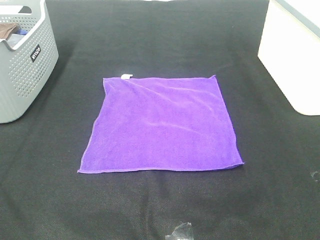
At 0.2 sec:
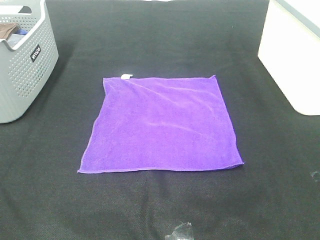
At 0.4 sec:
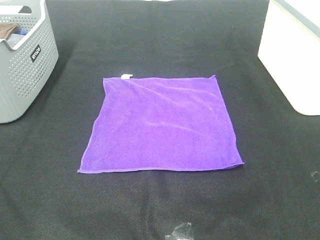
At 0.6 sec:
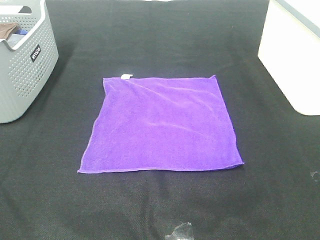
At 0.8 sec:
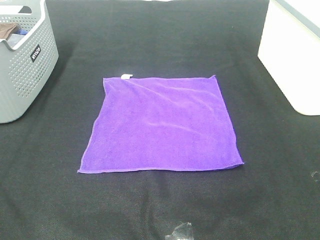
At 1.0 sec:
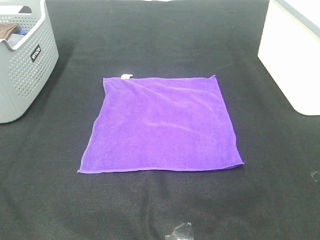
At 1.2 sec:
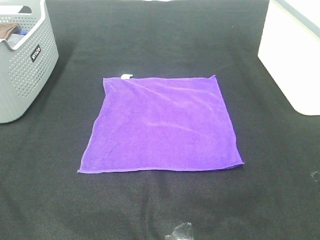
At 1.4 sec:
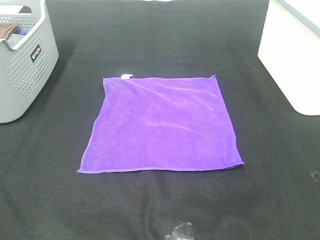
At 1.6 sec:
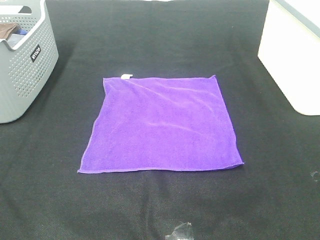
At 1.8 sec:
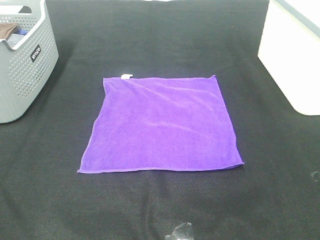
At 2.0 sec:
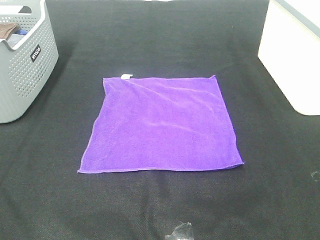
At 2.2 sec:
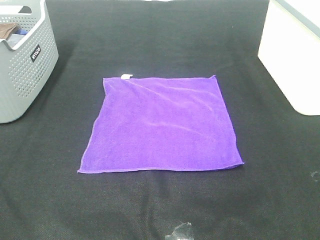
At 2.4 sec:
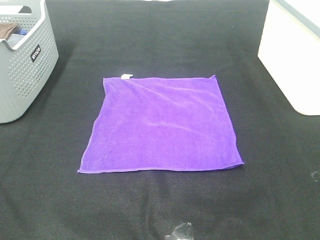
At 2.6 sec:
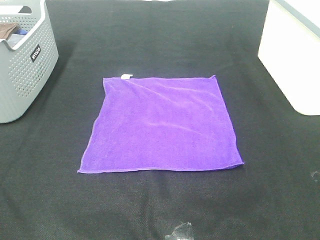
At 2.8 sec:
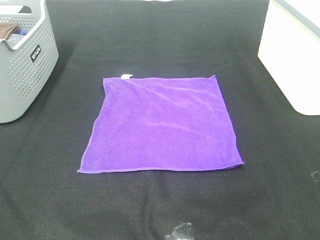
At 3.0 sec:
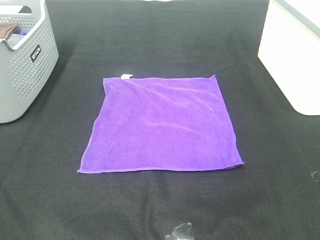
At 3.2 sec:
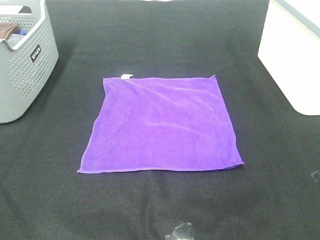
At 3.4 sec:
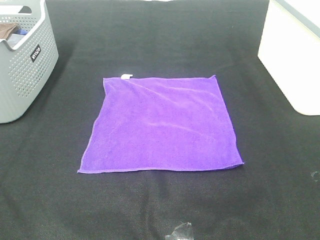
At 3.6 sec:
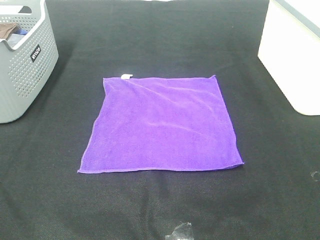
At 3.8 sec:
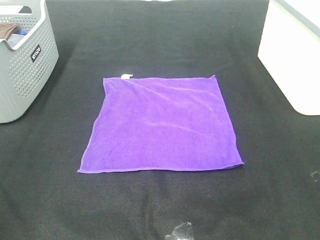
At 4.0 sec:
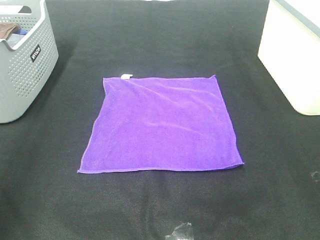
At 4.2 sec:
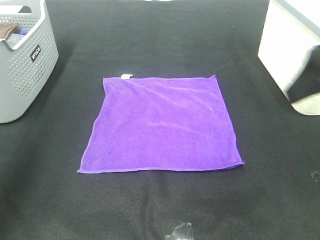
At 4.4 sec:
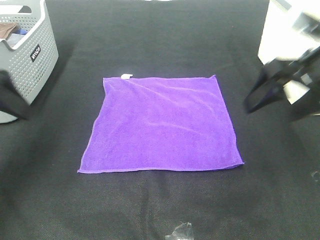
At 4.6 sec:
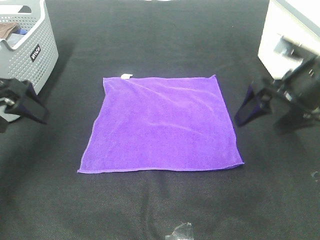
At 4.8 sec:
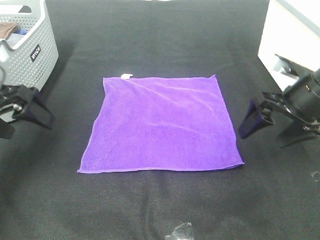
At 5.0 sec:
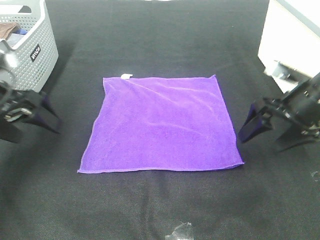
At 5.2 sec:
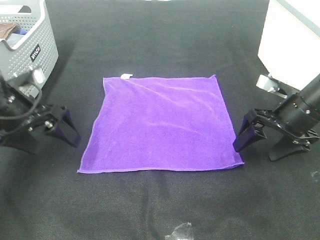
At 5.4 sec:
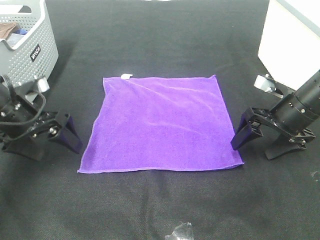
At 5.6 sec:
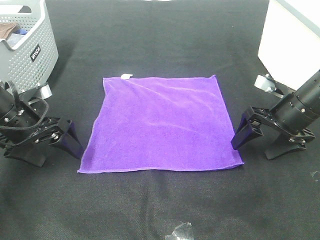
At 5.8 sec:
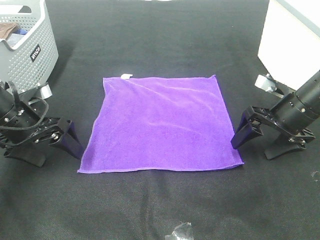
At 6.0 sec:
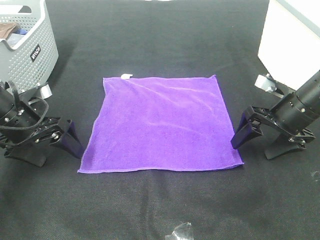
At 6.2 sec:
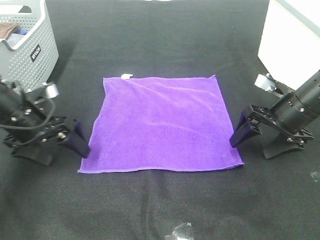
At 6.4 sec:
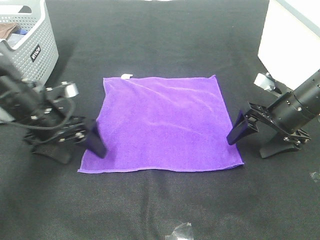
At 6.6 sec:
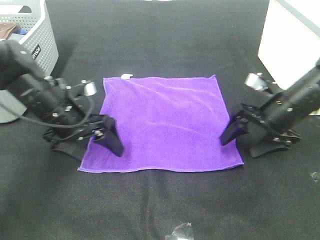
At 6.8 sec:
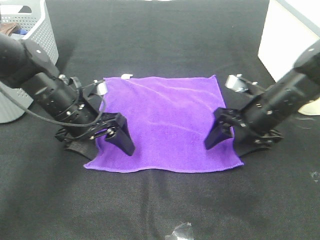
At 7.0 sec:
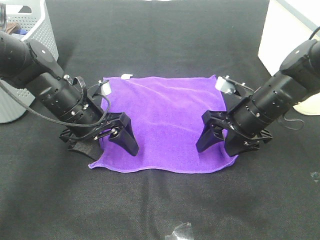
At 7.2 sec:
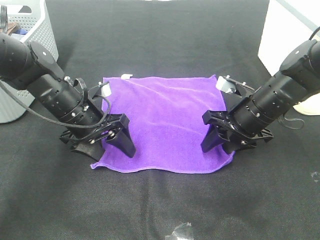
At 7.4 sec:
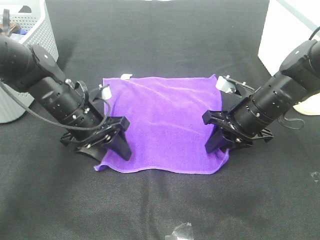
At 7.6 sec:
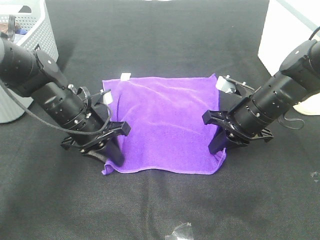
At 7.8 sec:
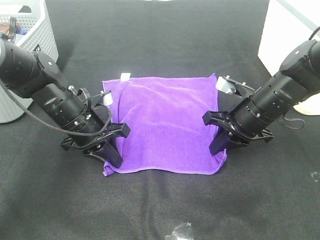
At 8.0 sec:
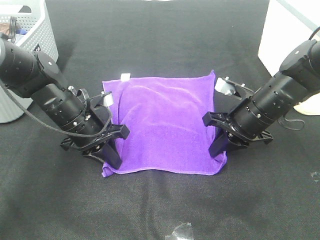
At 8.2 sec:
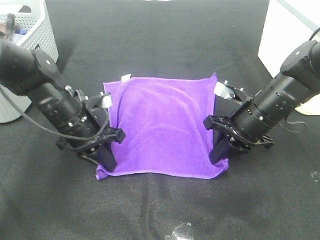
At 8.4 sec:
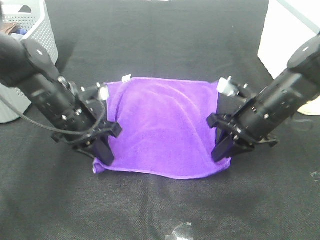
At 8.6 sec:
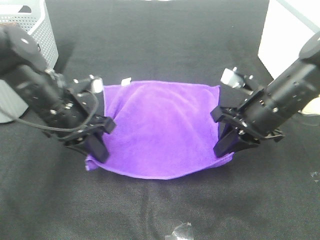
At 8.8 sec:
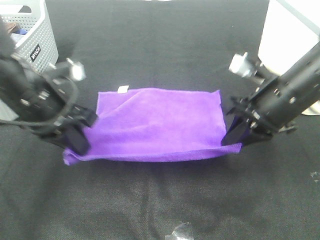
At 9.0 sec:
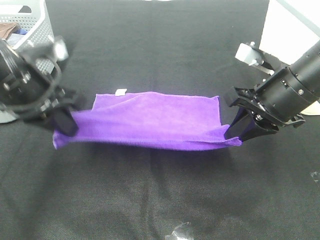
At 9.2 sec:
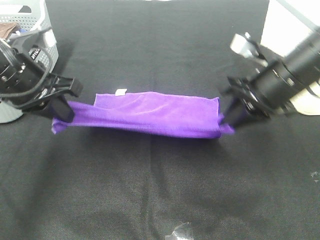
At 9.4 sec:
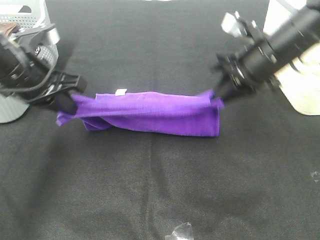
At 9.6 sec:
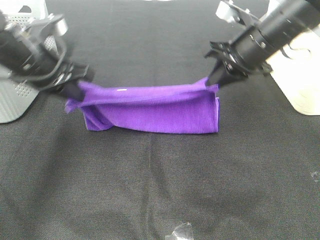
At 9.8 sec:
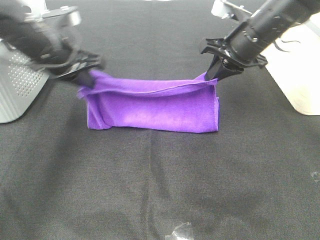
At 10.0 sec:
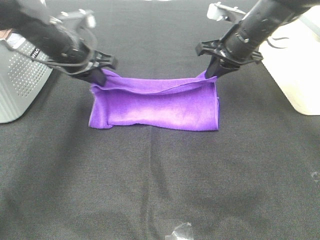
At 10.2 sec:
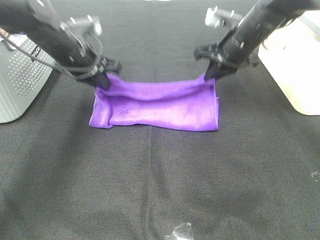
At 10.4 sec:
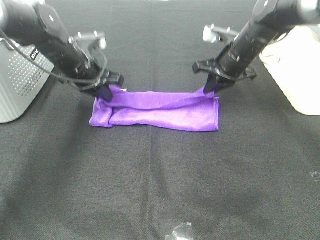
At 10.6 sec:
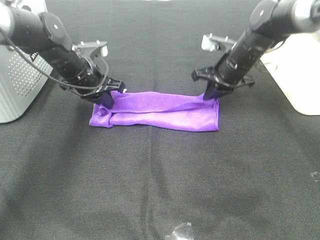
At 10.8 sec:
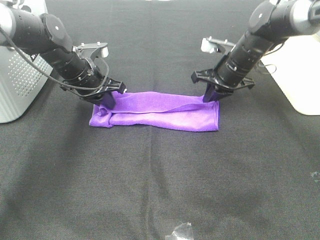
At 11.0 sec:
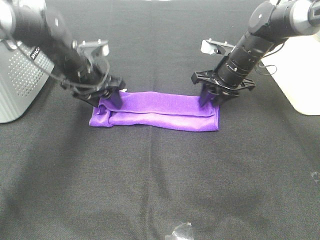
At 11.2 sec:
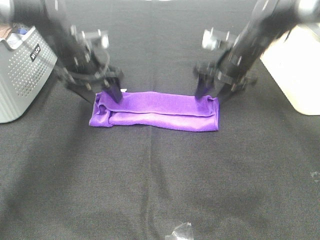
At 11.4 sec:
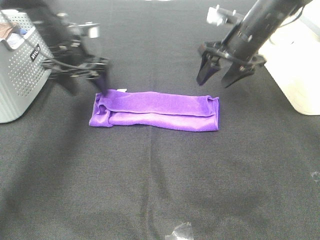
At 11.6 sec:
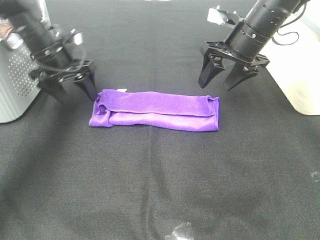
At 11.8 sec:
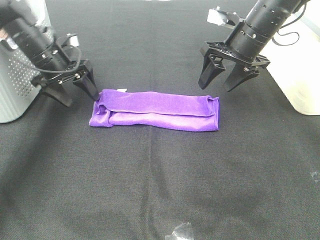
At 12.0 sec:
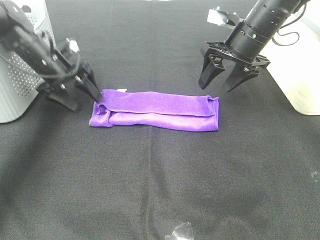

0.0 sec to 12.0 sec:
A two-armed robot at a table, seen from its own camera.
Task of the whole recording: Fold towels.
Step, 0.0 sec to 7.6 sec: Left hand: grab the bottom left corner of purple towel.
Step, 0.0 sec to 7.6 sec: Right hand: grab the bottom right corner of purple towel.
Step, 7.8 sec to 10.6 sec: Left hand: fold the purple towel up.
Step, 7.8 sec to 10.6 sec: Right hand: fold the purple towel up.
0.0 sec to 3.0 sec: Both grippers stay put.
3.0 sec to 4.4 sec: The two grippers go approximately 30 cm forward.
4.4 sec to 6.0 sec: Both grippers travel together downward and forward, approximately 15 cm.
6.0 sec to 7.6 sec: The left gripper is displaced to the right by some 10 cm, and closes its fingers. Meanwhile the right gripper shifts some 5 cm to the left, and closes.
7.6 sec to 9.0 sec: Both grippers move upward and backward, some 15 cm.
9.0 sec to 10.4 sec: The left gripper heads forward and downward, covering some 20 cm. Meanwhile the right gripper travels forward by about 20 cm.
10.4 sec to 12.0 sec: The right gripper shifts about 5 cm upward, and opens; the left gripper moves to the left, approximately 5 cm, and opens its fingers.

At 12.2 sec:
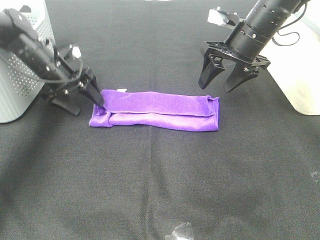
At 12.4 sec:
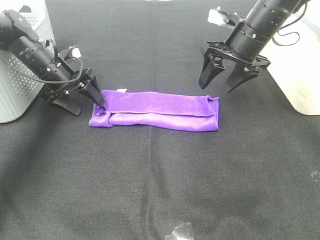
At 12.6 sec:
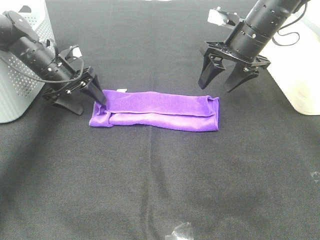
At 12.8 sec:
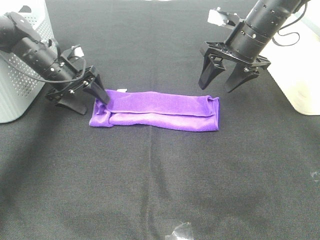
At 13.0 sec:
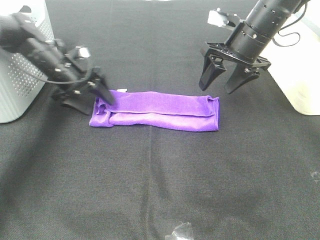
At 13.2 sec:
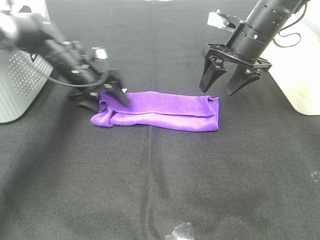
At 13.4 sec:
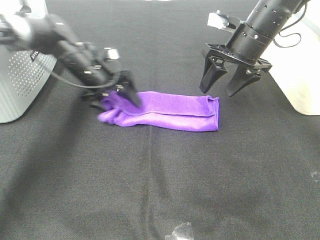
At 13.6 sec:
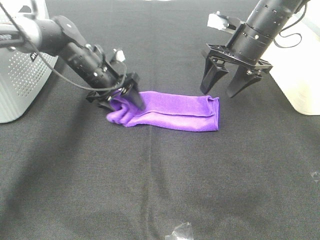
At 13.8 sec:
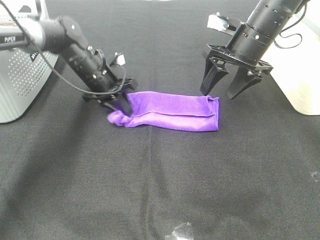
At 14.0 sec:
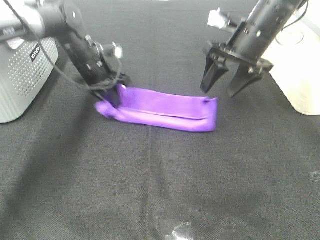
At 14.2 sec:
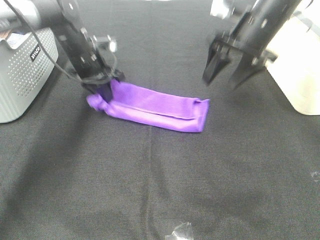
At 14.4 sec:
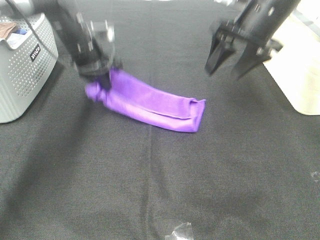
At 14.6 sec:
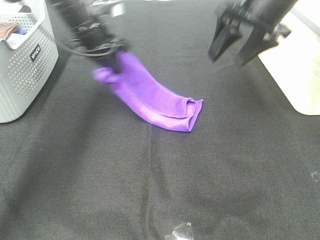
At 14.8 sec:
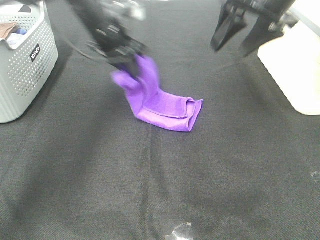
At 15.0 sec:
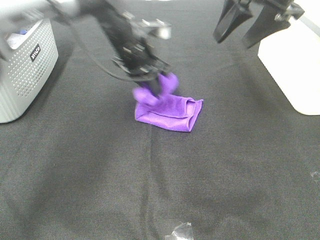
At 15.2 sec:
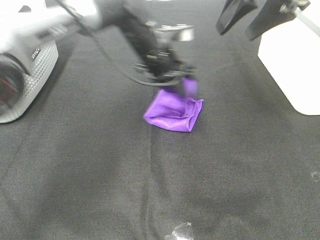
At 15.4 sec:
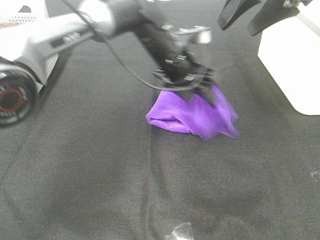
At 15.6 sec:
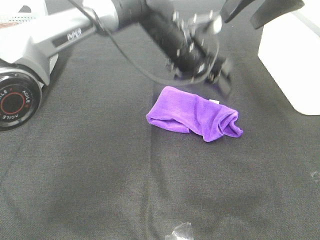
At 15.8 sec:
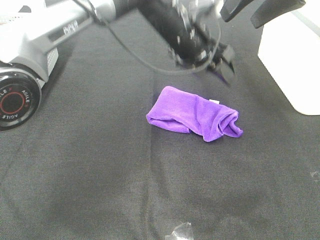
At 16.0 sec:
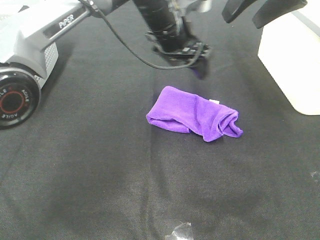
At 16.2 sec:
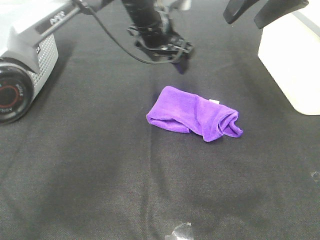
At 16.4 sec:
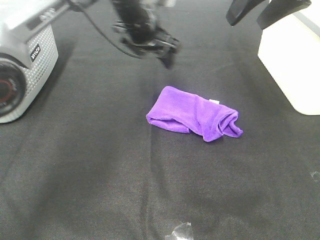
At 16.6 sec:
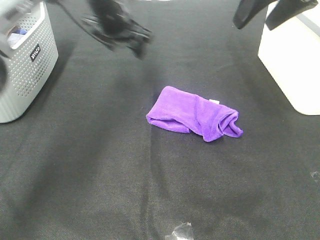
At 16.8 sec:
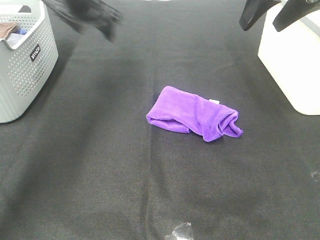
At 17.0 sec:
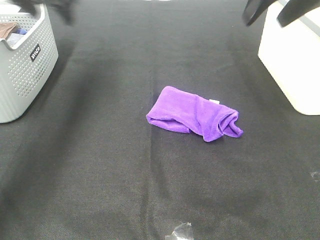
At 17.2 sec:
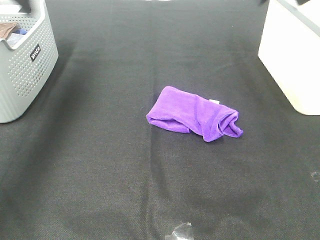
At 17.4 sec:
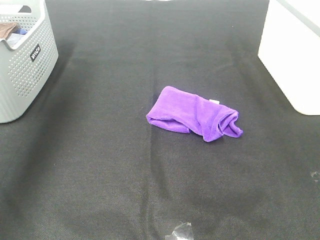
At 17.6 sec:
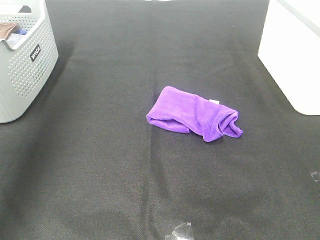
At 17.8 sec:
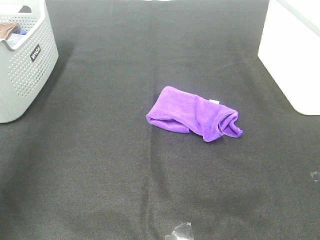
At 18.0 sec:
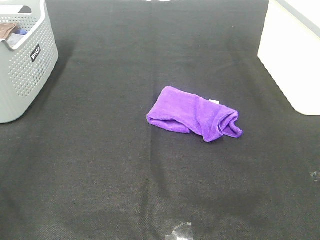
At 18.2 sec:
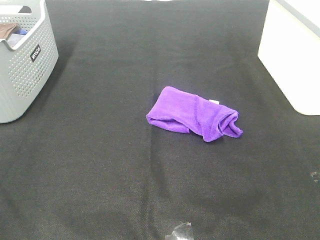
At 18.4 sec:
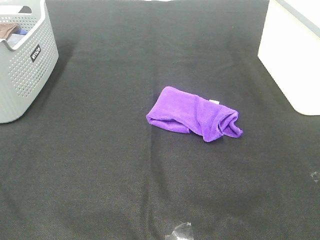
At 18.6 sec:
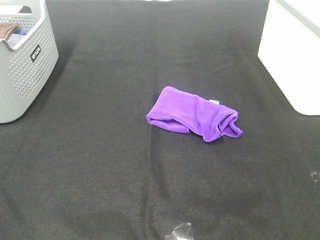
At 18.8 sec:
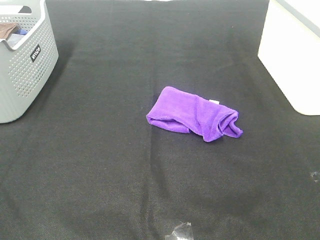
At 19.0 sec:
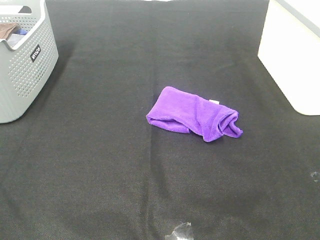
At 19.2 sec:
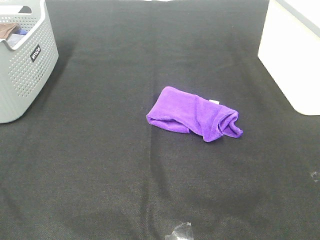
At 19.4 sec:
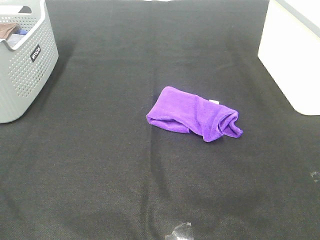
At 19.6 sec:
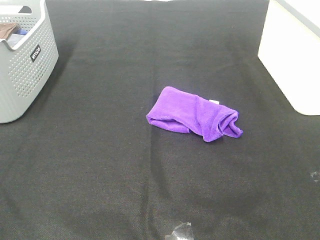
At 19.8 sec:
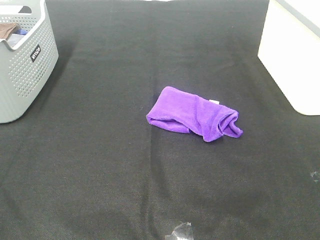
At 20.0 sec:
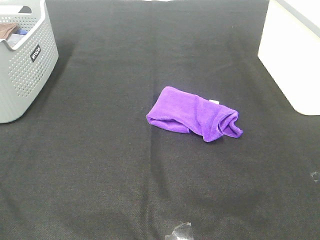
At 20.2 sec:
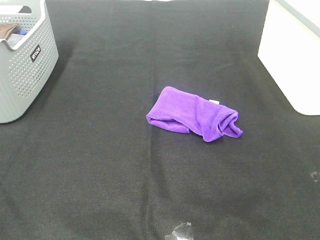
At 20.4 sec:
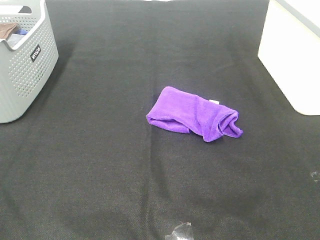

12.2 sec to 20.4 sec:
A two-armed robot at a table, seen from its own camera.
Task of the whole recording: Fold towels.
Step, 12.2 sec to 15.0 sec: Left hand: fold the purple towel from left to right.
12.2 sec to 13.8 sec: The left gripper goes approximately 10 cm to the right, and closes its fingers.
13.8 sec to 15.4 sec: The right gripper travels upward by some 15 cm. The left gripper shifts approximately 20 cm to the right and upward, and opens its fingers.
15.4 sec to 17.2 sec: The right gripper travels upward by about 5 cm; the left gripper heads to the left and upward, covering approximately 35 cm.
17.2 sec to 18.8 sec: The left gripper goes approximately 40 cm backward.
